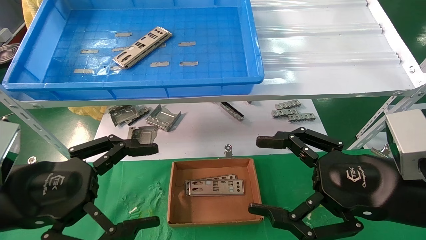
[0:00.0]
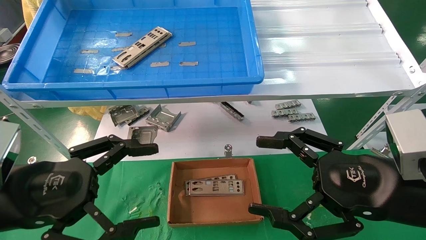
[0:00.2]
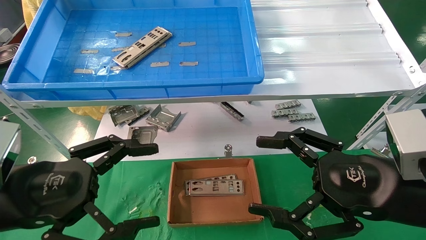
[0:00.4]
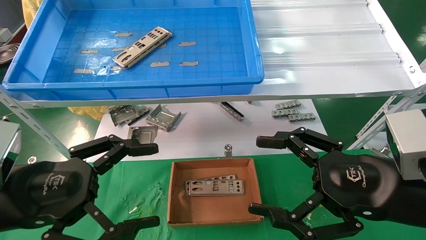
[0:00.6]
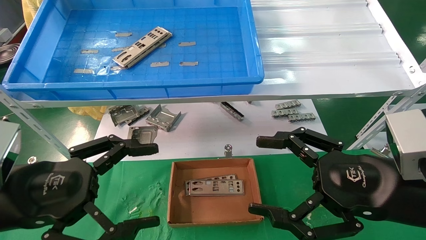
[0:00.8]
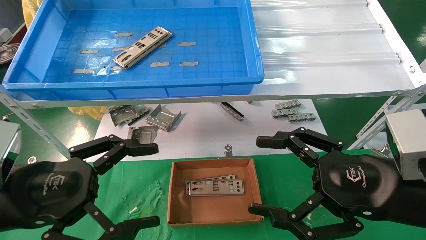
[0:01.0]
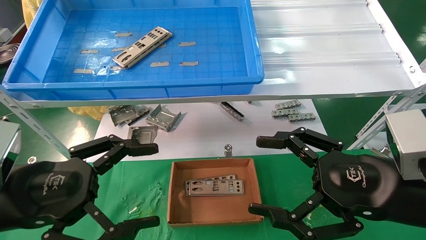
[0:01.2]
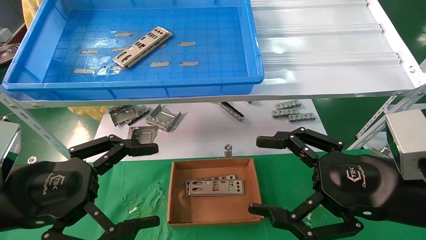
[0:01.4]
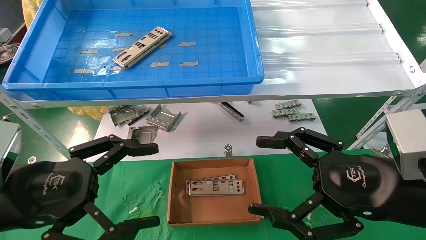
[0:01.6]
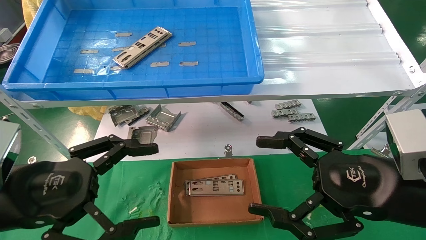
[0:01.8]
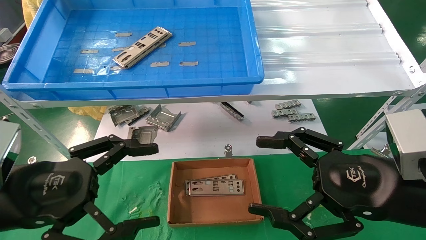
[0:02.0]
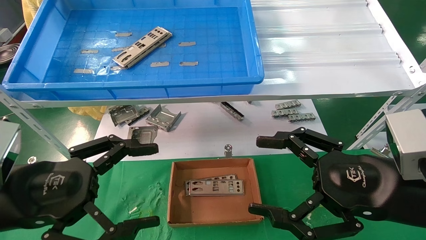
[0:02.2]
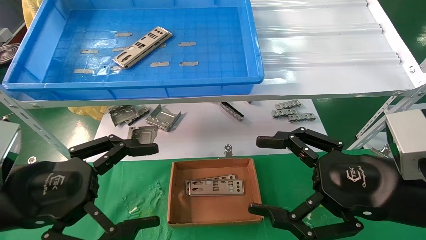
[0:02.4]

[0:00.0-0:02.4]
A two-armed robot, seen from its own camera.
Task of the whole recording: pick up the parts on the tray and put them in the cardboard box.
0:00.0 to 0:02.4: Both grippers stay put.
